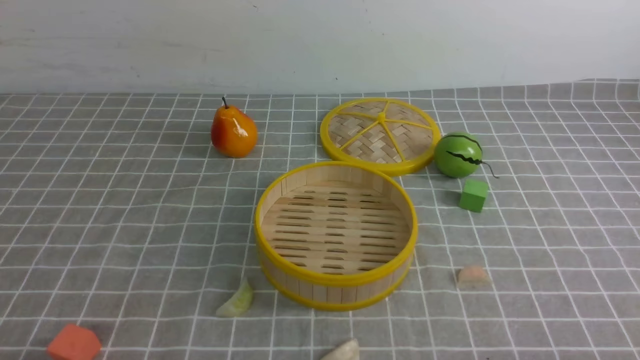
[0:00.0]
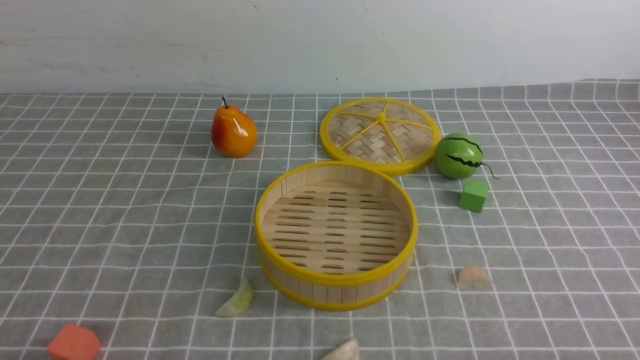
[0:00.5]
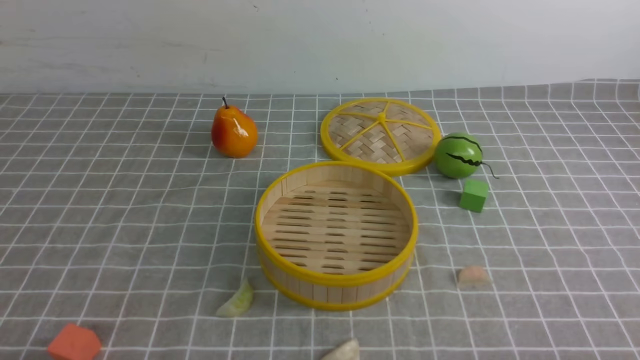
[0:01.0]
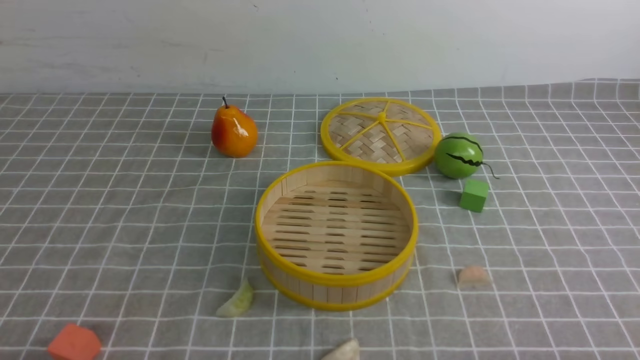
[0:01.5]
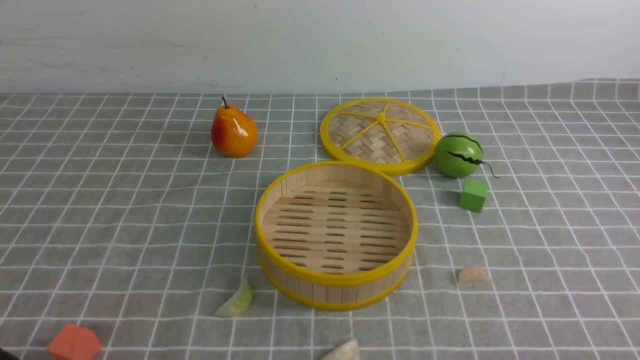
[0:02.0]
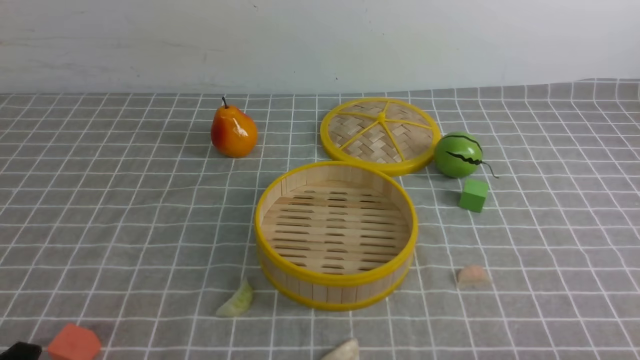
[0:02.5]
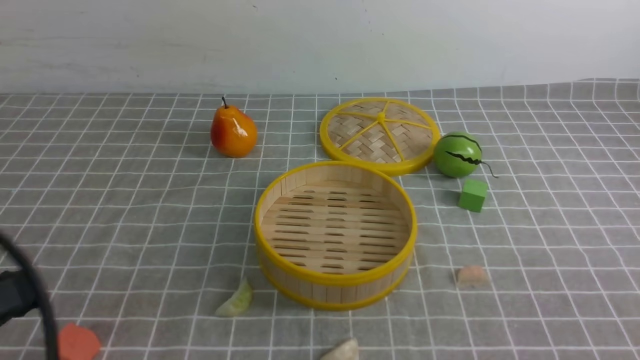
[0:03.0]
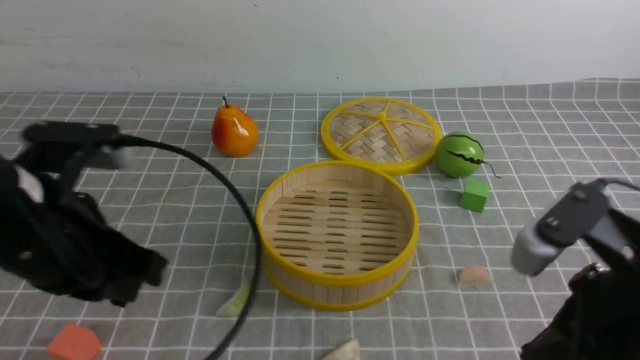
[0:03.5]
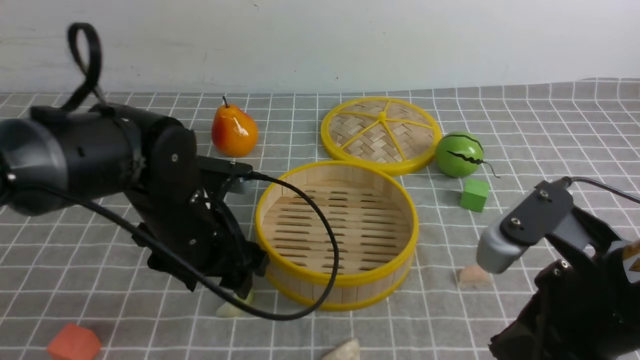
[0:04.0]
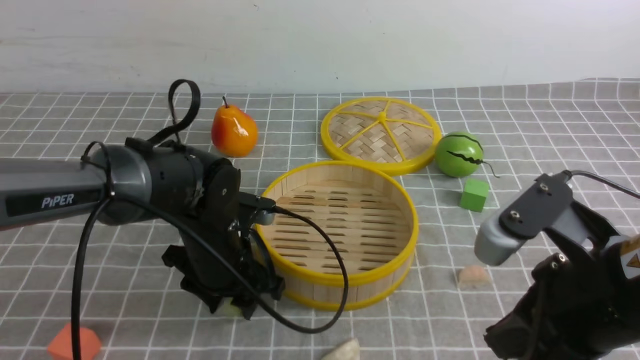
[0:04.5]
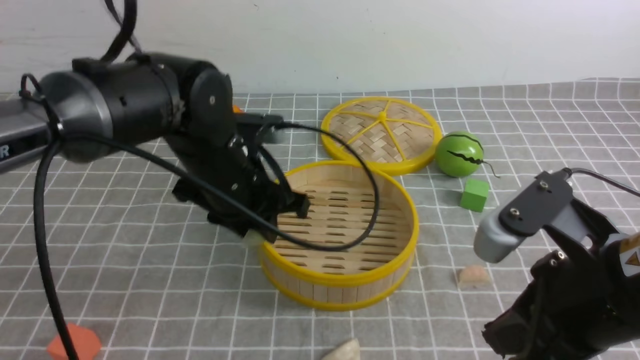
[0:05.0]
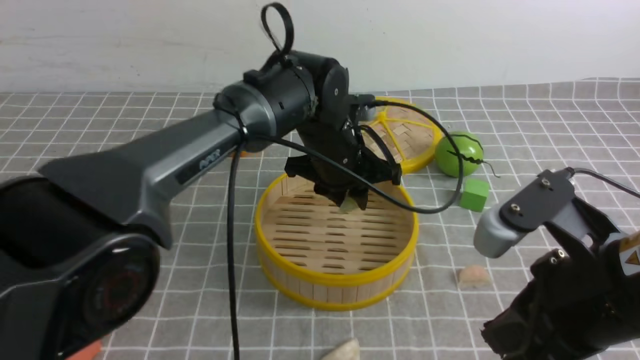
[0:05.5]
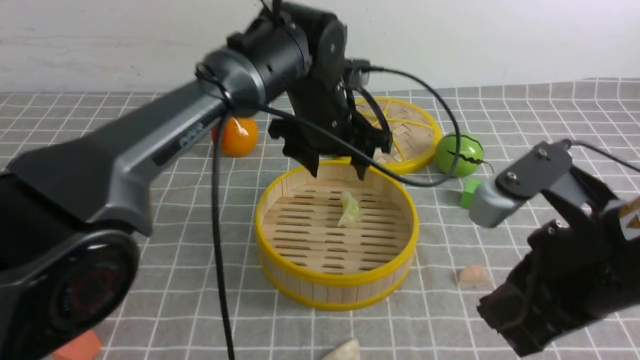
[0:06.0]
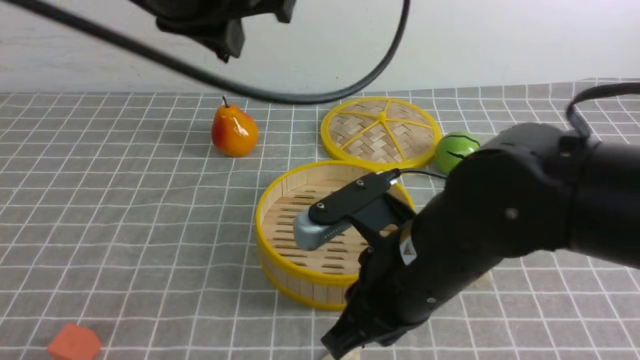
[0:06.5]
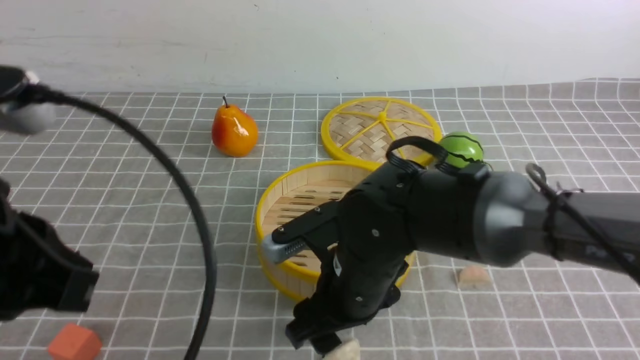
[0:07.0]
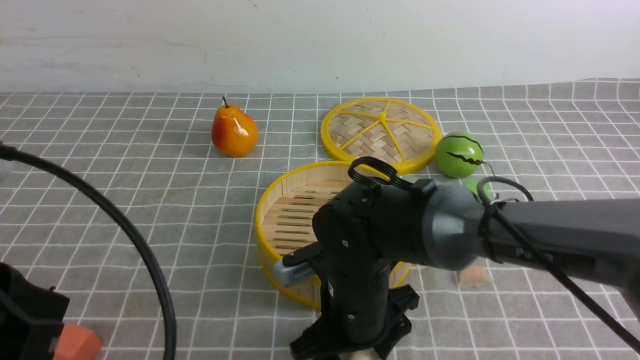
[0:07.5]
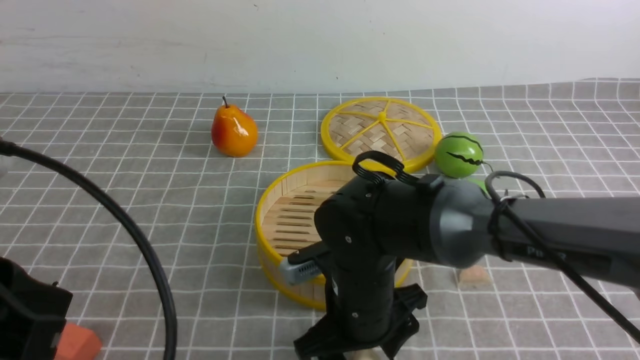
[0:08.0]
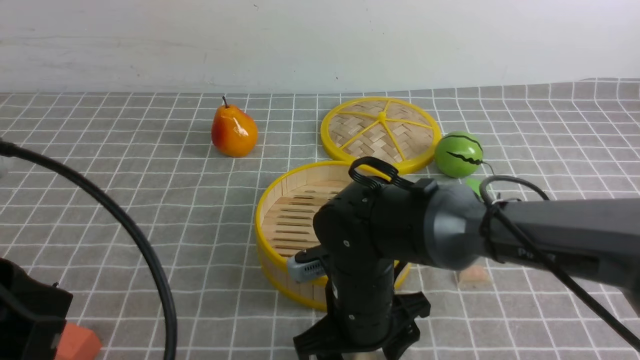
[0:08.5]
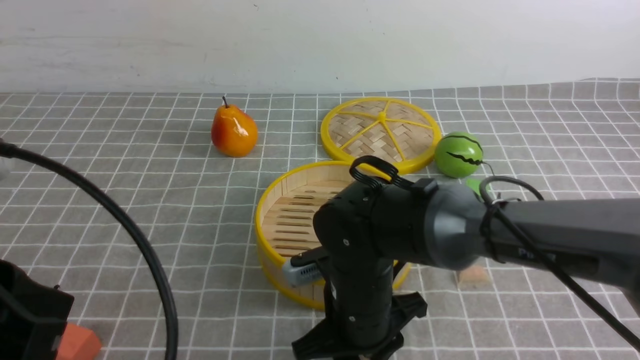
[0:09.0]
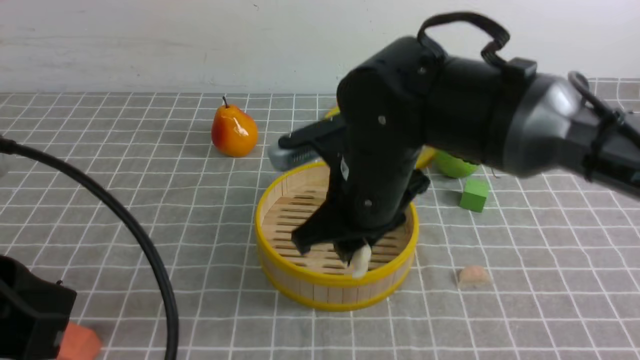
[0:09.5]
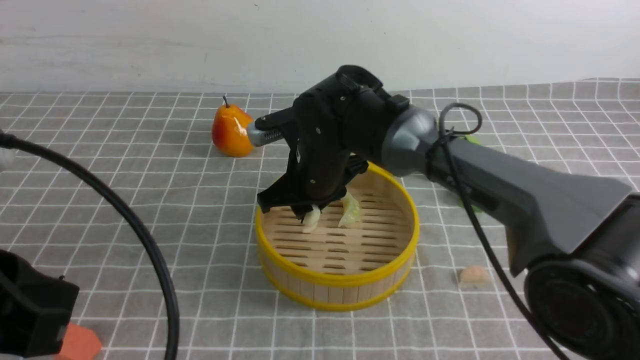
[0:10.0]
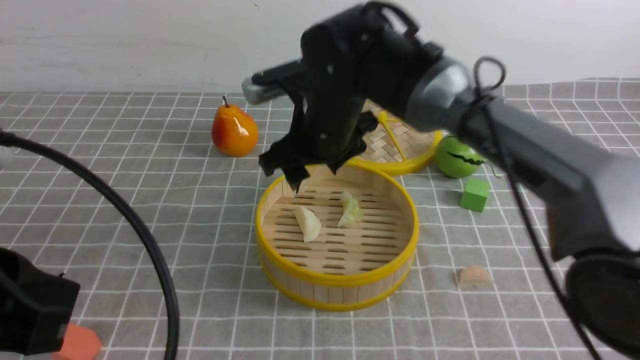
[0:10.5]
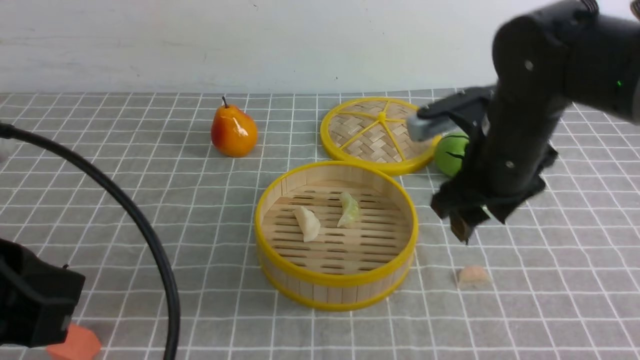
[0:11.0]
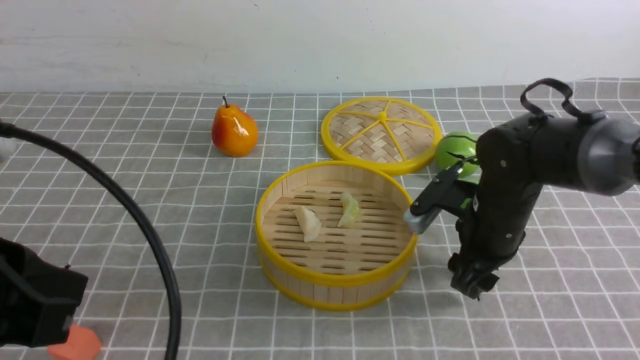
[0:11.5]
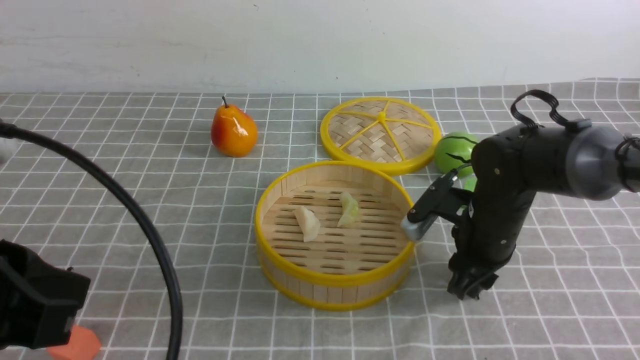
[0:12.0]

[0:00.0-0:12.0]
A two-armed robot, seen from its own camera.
Task of the whole recording: put the dumplings into the steamer on the table with the grey tablecloth.
Step, 0:00.0 to 0:04.5: use the left arm to grab a dumpling.
Step, 0:05.0 to 0:06.0: use the left arm to put the dumpling into the steamer.
Step, 0:06.5 to 0:09.0: use the right arm to grab a dumpling.
Step, 0:09.5 to 0:10.5: use the right arm to put the dumpling into the steamer.
0:02.0 to 0:04.0: The right gripper heads to the left, forward and upward, covering about 20 cm, and closes; the left gripper is displaced forward and to the right by roughly 30 cm, and opens its fingers.
0:04.0 to 0:06.0: The left gripper heads to the right, forward and upward, covering roughly 20 cm, and closes, then reopens.
0:06.0 to 0:08.0: The left gripper goes approximately 35 cm backward and to the left, and closes, while the right gripper heads downward, to the left and forward, covering approximately 20 cm, and opens up.
0:08.0 to 0:10.0: The right gripper heads forward, covering roughly 15 cm, and closes.
0:10.0 to 0:12.0: The right gripper travels to the right by approximately 20 cm.

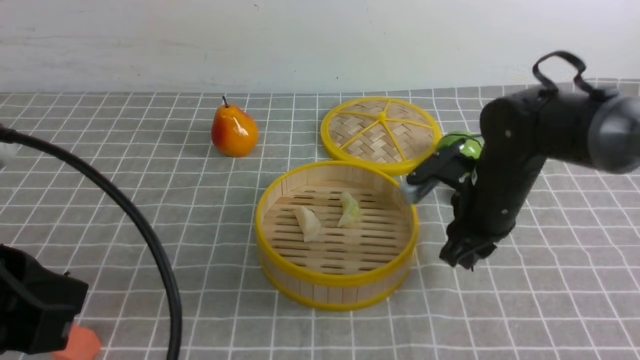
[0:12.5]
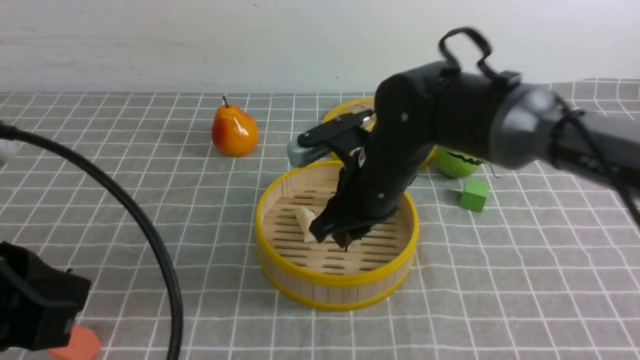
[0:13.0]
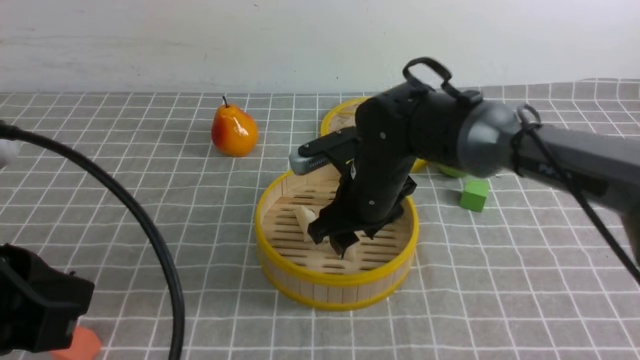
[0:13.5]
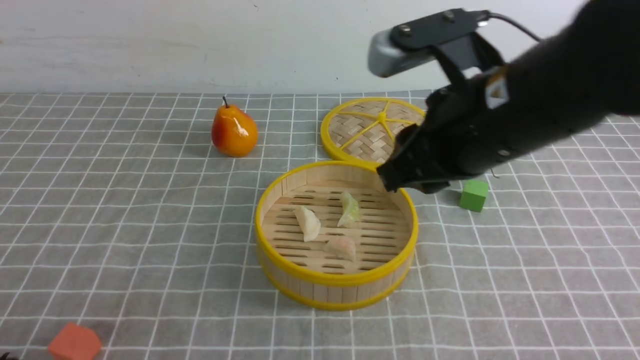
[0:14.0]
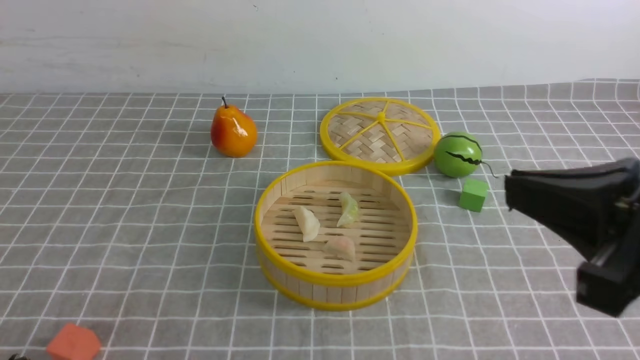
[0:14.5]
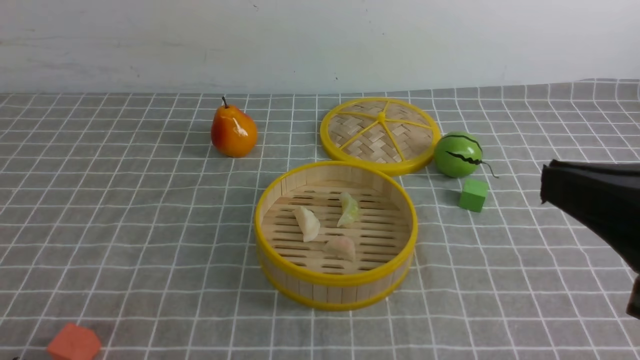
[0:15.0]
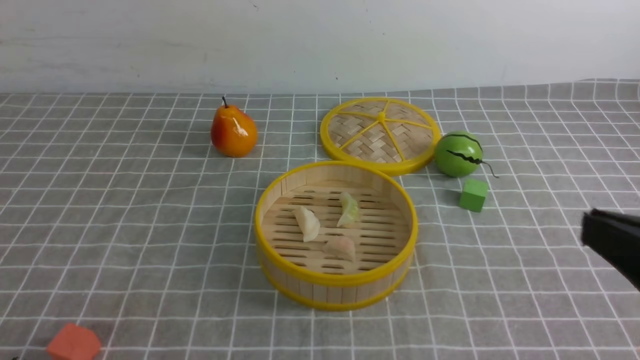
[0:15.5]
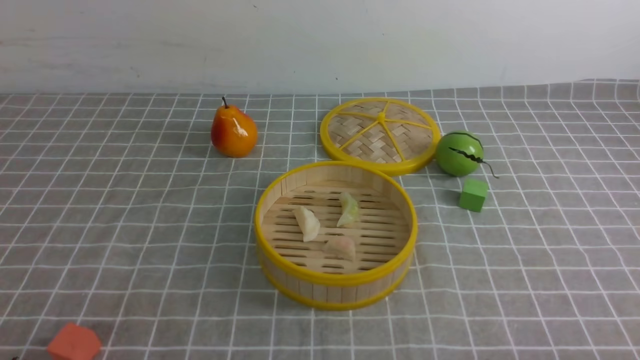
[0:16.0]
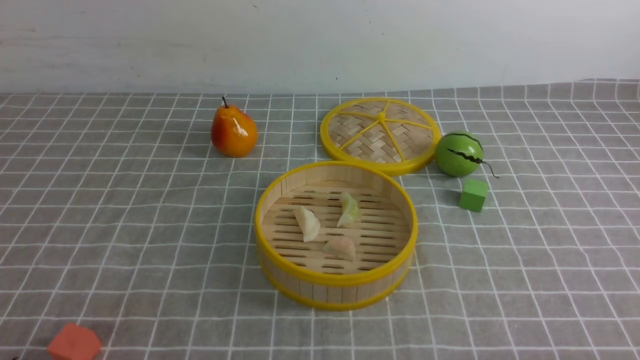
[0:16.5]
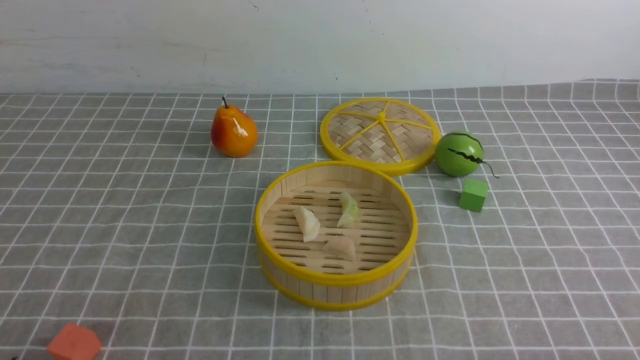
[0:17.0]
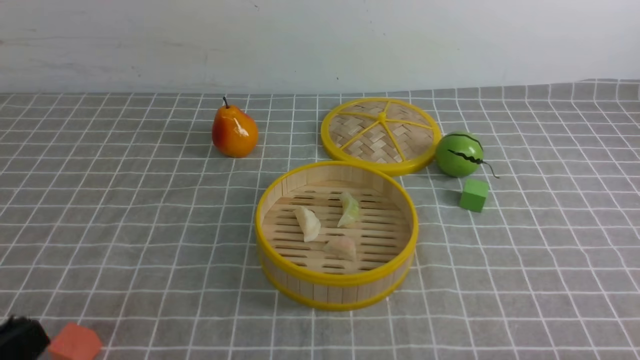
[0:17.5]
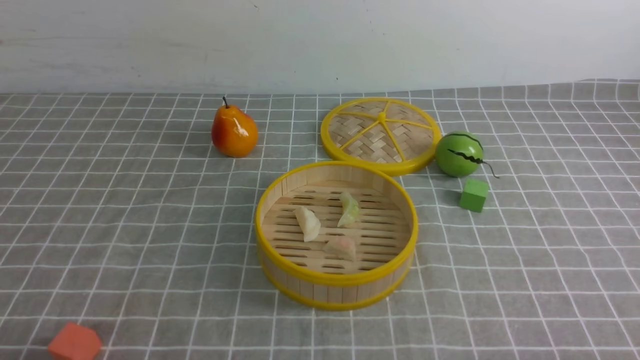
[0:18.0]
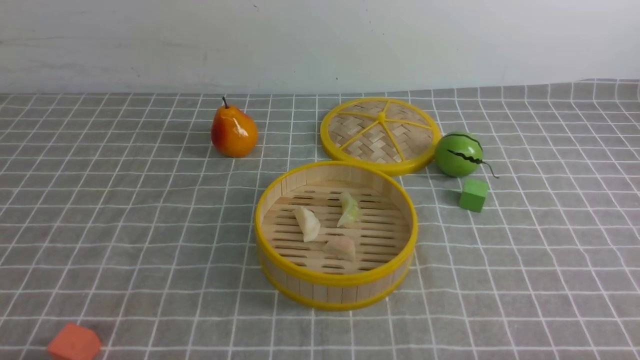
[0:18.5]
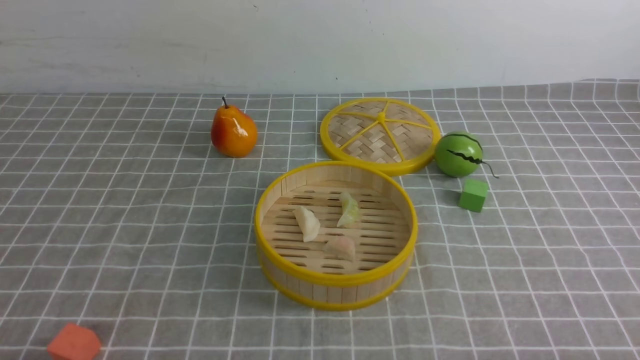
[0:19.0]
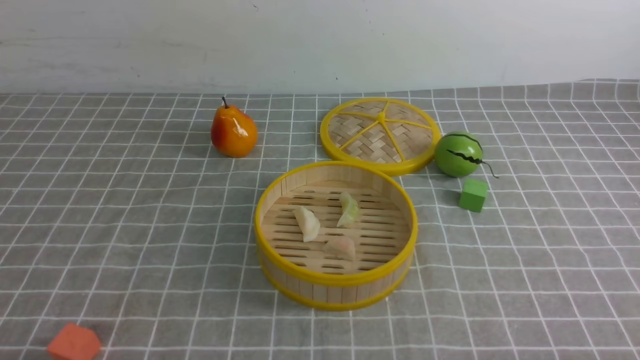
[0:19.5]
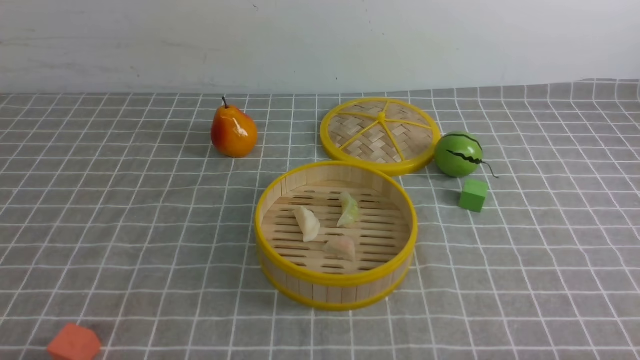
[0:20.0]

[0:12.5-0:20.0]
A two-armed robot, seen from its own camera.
Task of the whole recording: put the dumplings into the steamer on the table with the grey tablecloth.
Step, 0:12.5 to 0:13.5: use the right arm to put the dumpling into the steamer.
0:12.5 to 0:14.5: The right gripper goes about 25 cm backward and upward, and closes up. The left gripper goes some 10 cm downward and backward.
0:14.5 to 0:16.5: The right gripper moves downward, to the right and backward, about 25 cm.
